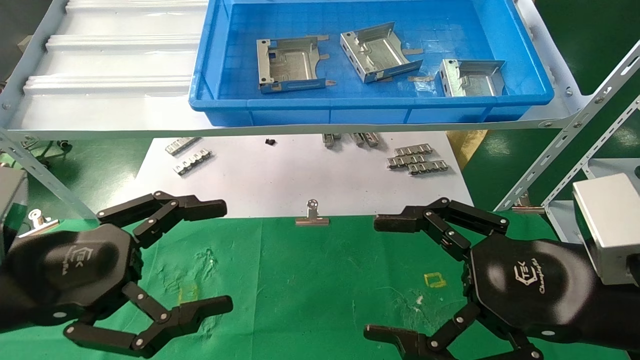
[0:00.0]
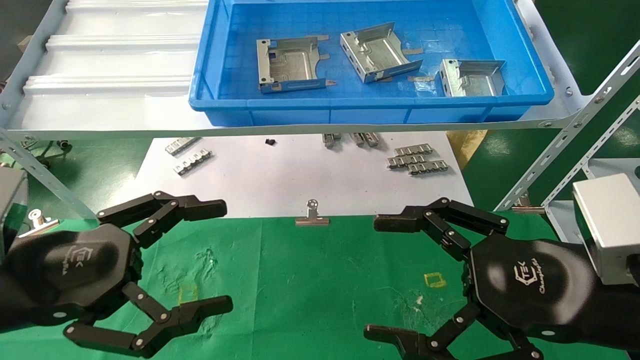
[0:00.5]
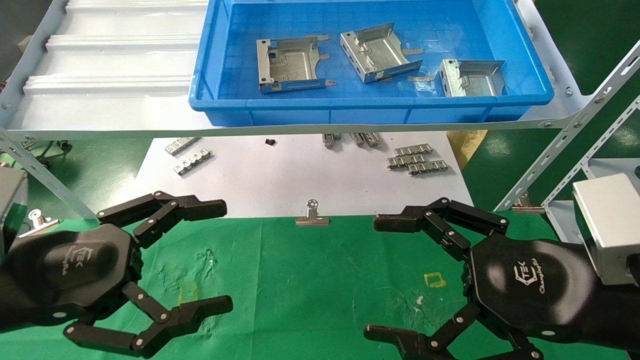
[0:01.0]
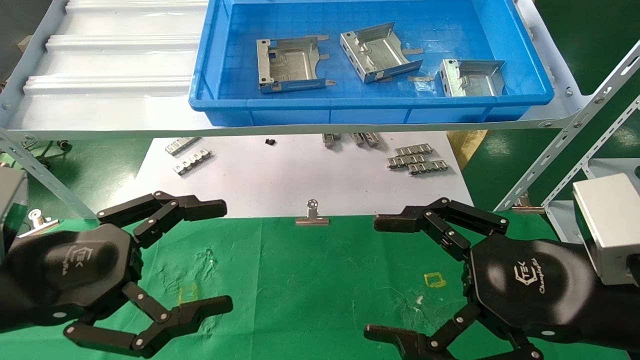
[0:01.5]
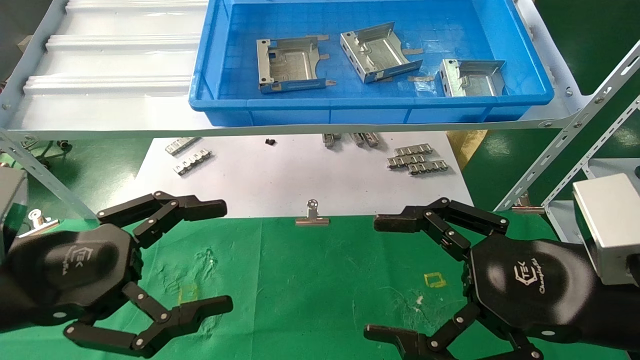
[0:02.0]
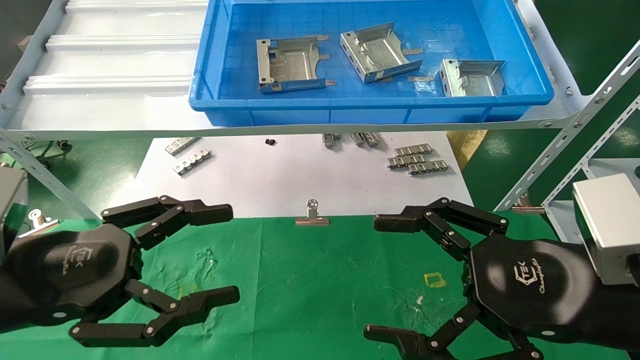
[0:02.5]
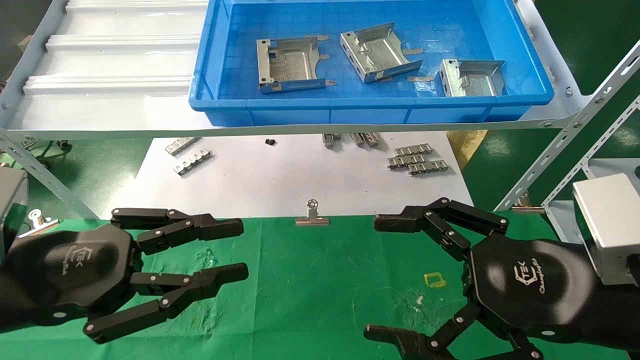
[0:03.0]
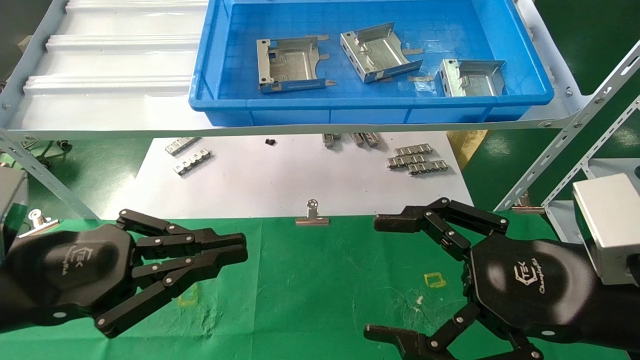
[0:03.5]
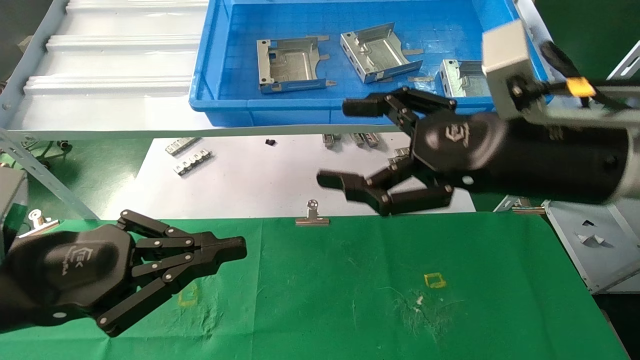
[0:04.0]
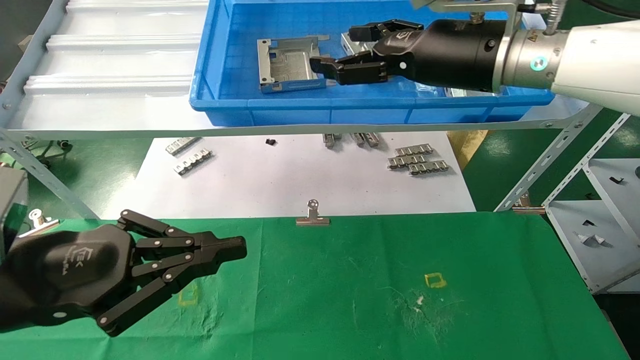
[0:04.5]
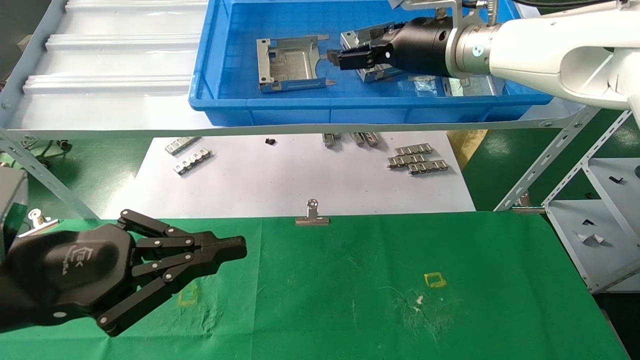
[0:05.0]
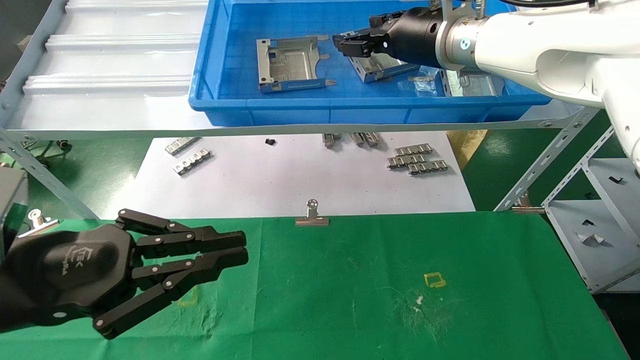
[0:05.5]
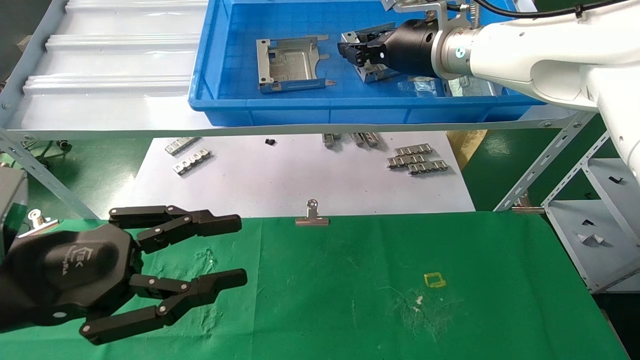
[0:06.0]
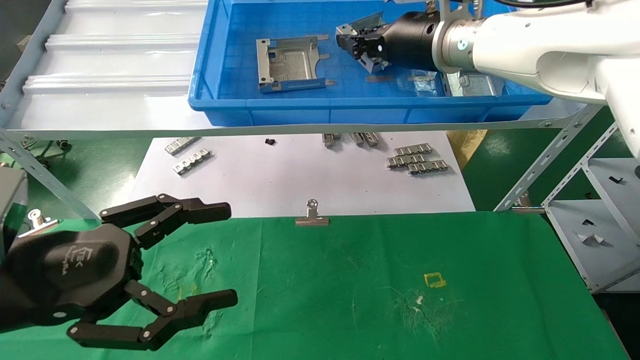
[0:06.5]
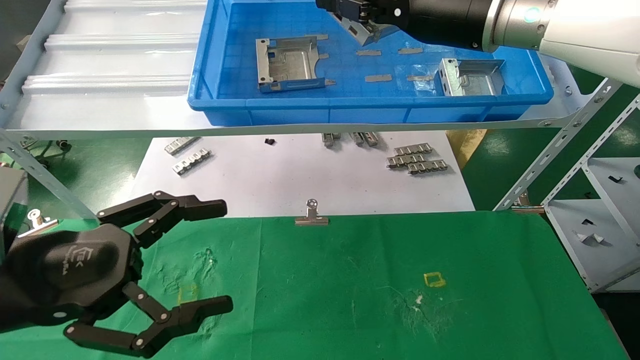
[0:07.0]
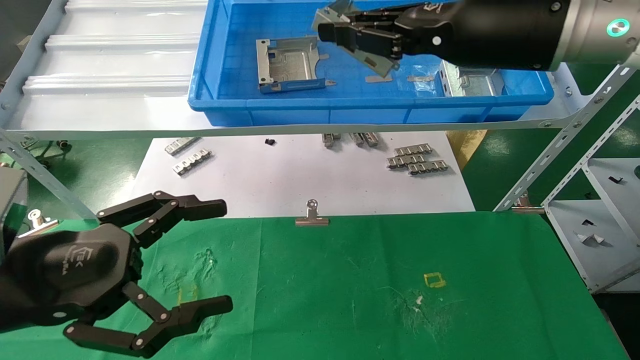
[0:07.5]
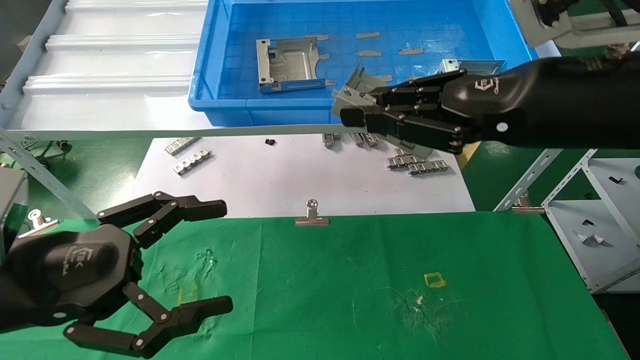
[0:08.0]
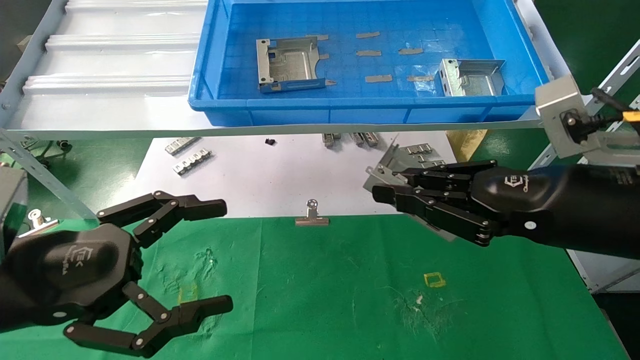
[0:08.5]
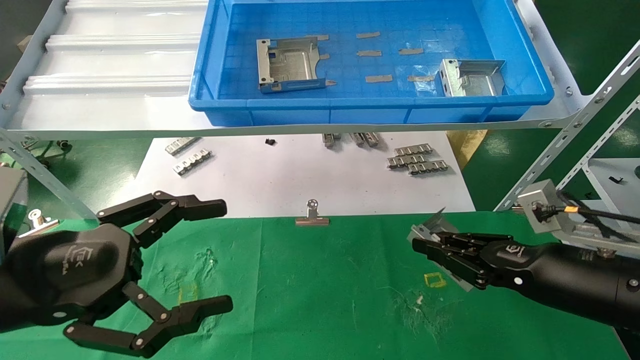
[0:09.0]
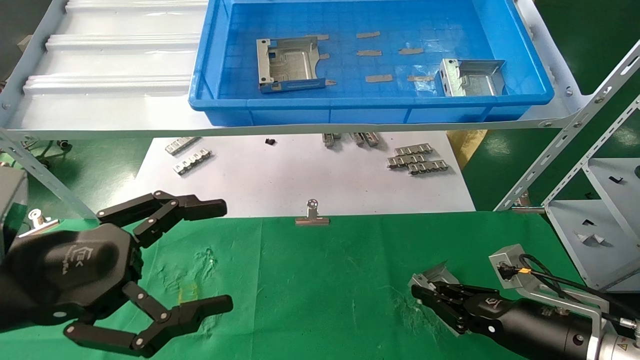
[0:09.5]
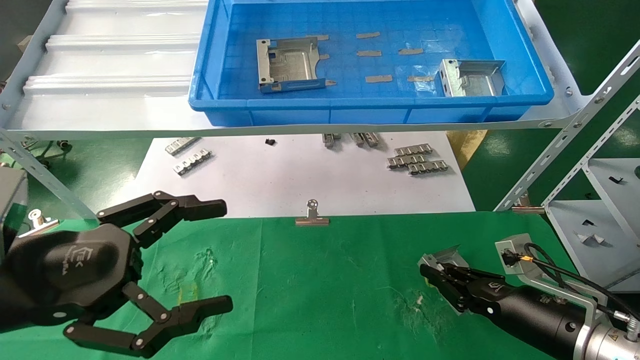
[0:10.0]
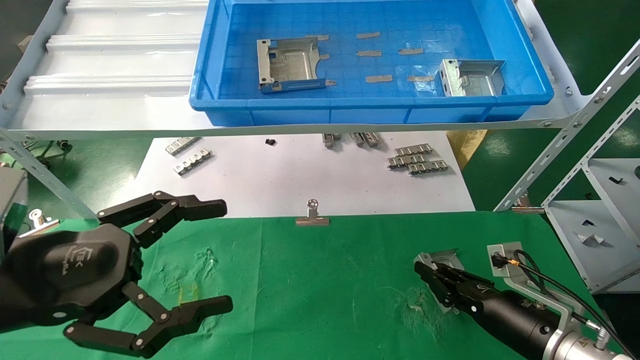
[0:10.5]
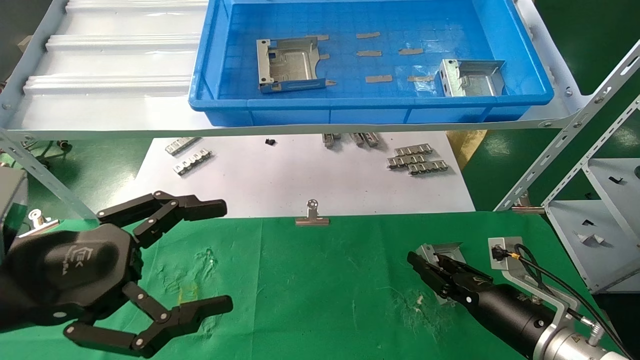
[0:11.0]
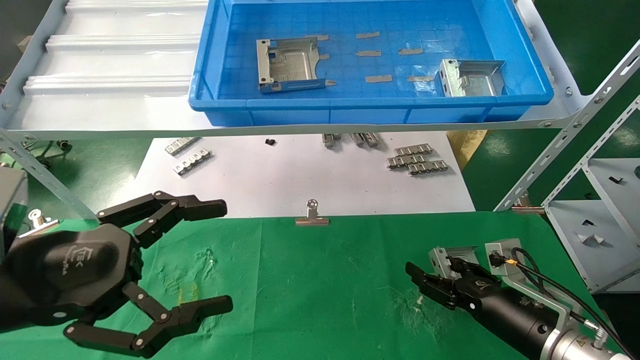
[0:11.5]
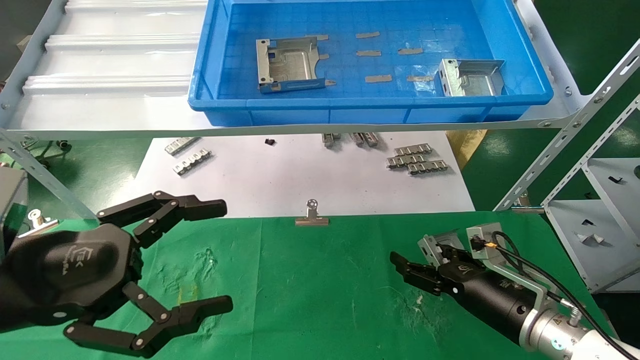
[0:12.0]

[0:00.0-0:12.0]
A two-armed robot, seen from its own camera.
Task of the whole recording: use the mechanical arm to pick up the parts and place them on the table.
Step, 0:02.5 to 0:07.0: Pick up the hard drive bracket from the feeding area.
0:00.0 to 0:02.0: Neither gripper changes place.
0:02.0 to 0:04.0: The right gripper travels upward and forward by some 10 cm; the left gripper closes up.
0:04.0 to 0:06.0: The right gripper is displaced forward and upward by some 20 cm, and closes.
0:06.0 to 0:08.0: The left gripper opens; the right gripper travels backward and to the right by approximately 20 cm.
0:08.0 to 0:10.0: The right gripper is displaced downward by about 30 cm.
0:10.0 to 0:12.0: The right gripper changes place by about 5 cm, and opens up.

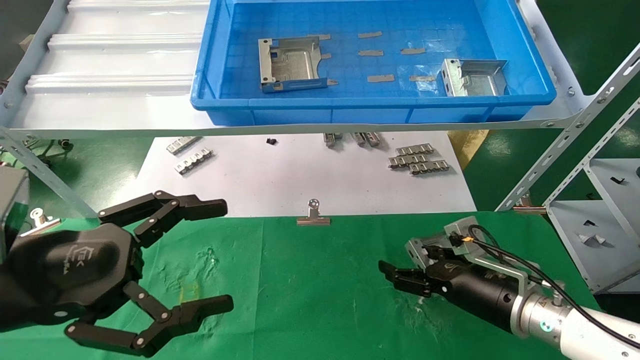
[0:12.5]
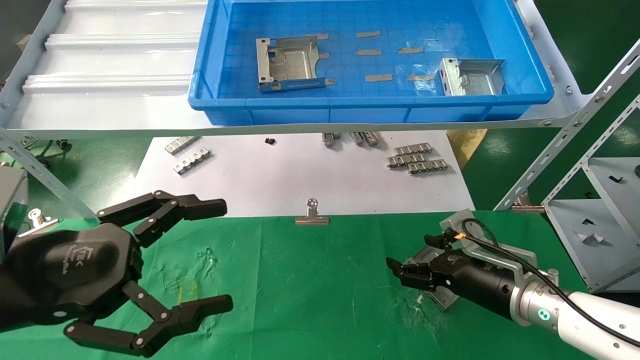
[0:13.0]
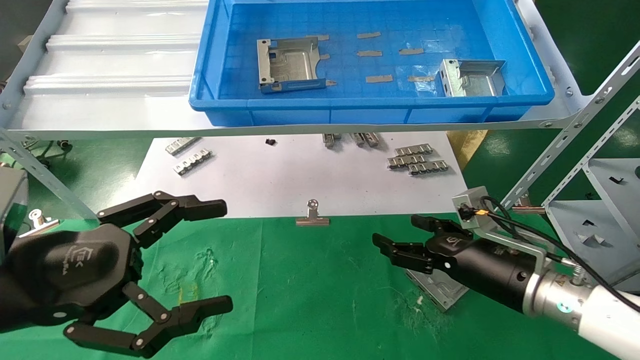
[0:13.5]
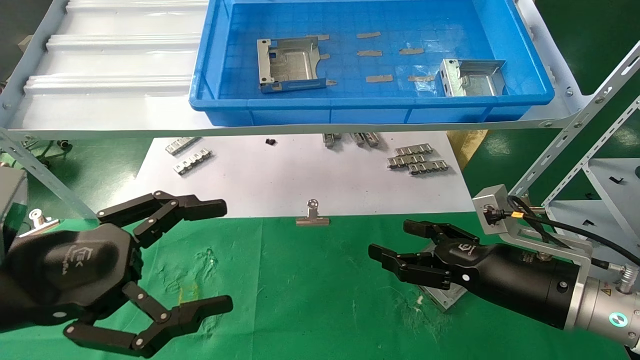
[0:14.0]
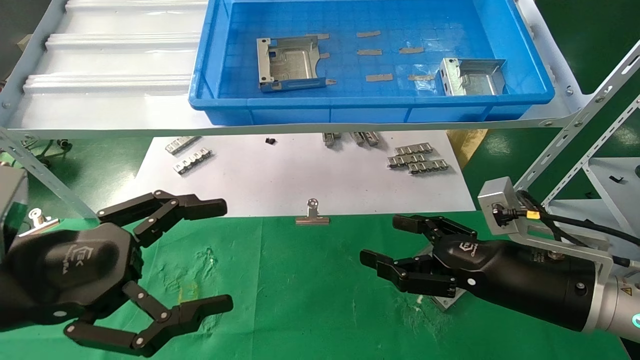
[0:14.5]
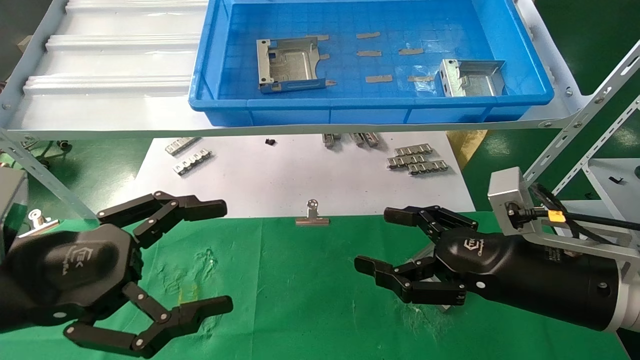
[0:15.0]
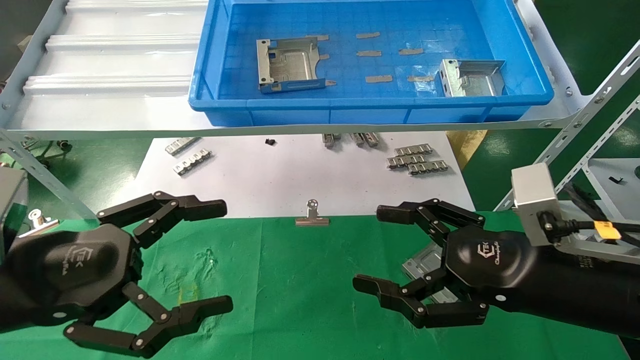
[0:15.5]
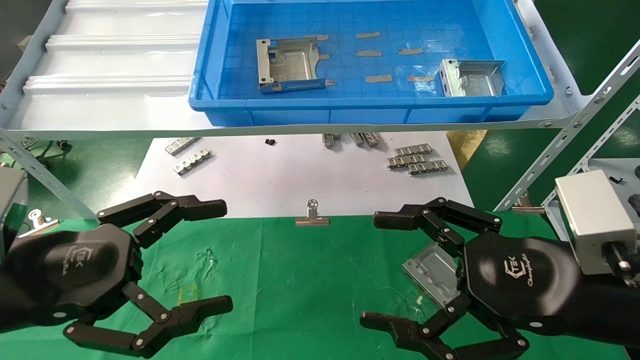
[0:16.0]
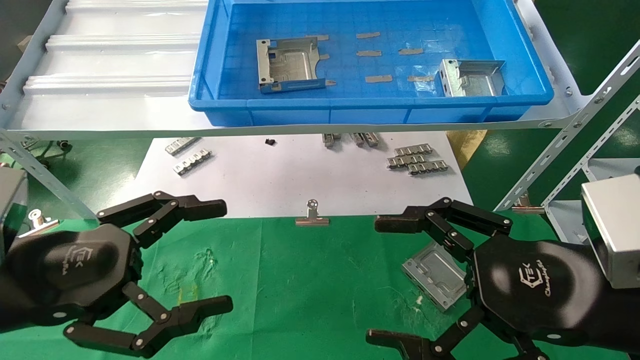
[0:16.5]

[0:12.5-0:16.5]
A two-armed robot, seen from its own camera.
Task of the whole recording: use the mechanical arm to pick up the parts and place them on the table.
0:12.5 to 0:14.5: The right gripper goes some 10 cm upward and backward.
0:14.5 to 0:16.5: The right gripper travels backward and upward by roughly 10 cm.
